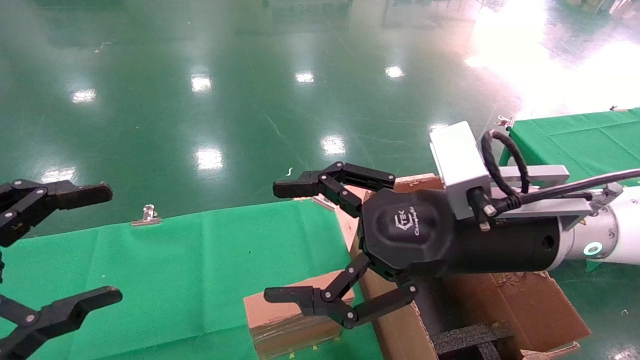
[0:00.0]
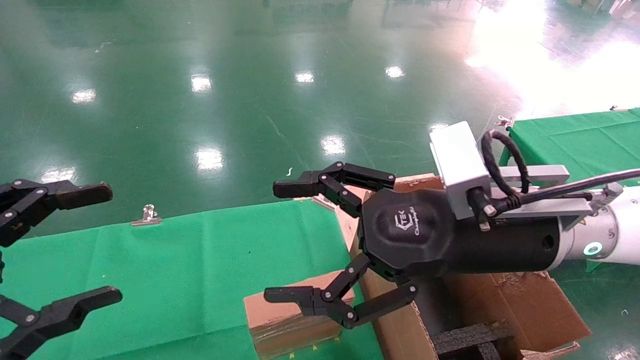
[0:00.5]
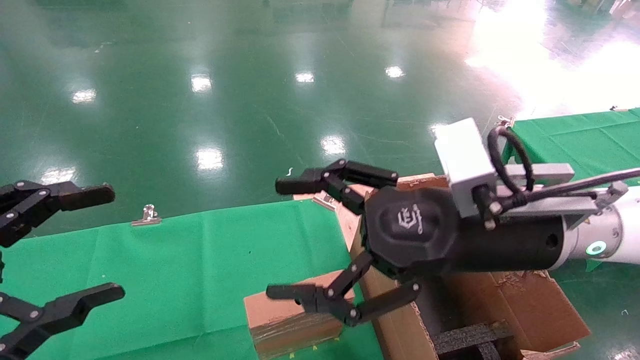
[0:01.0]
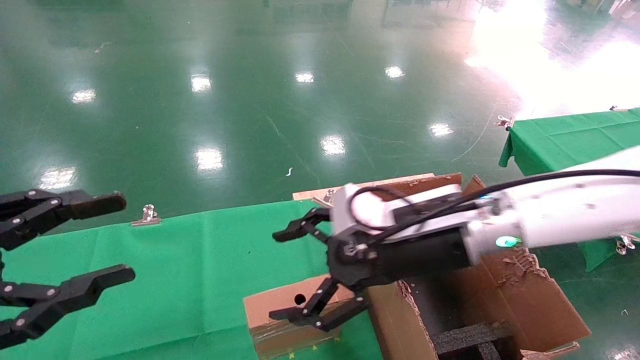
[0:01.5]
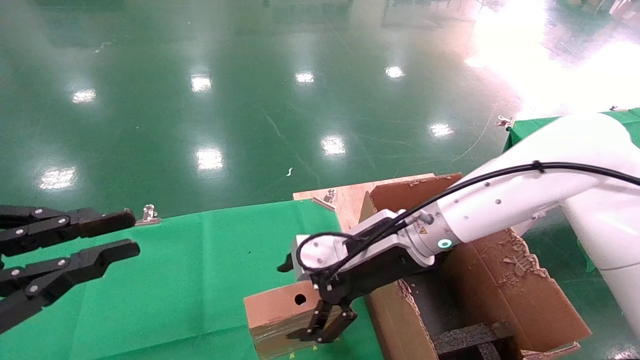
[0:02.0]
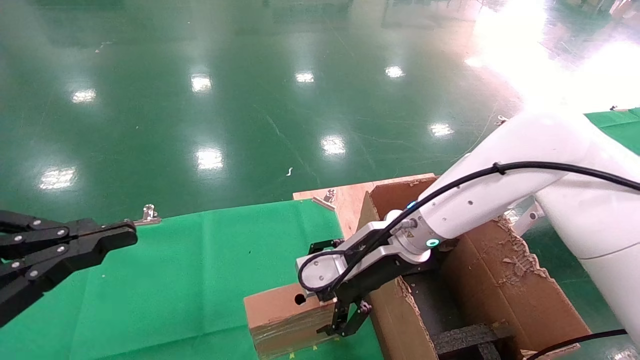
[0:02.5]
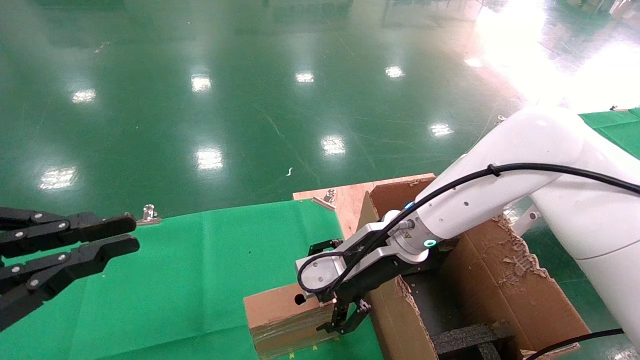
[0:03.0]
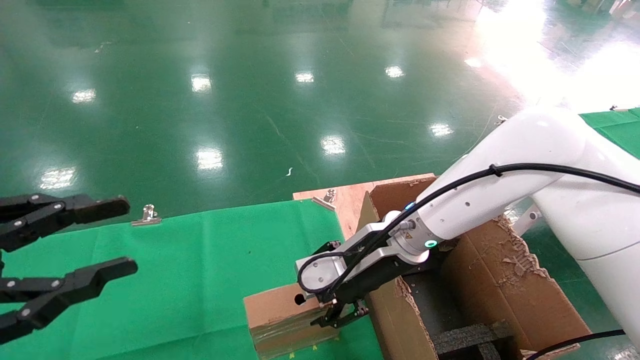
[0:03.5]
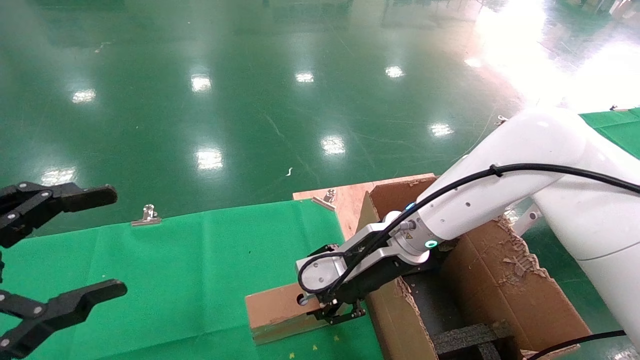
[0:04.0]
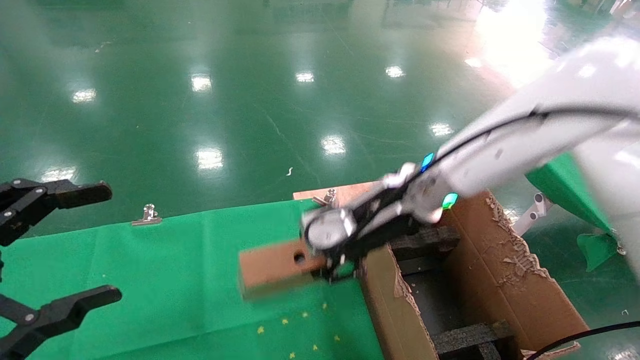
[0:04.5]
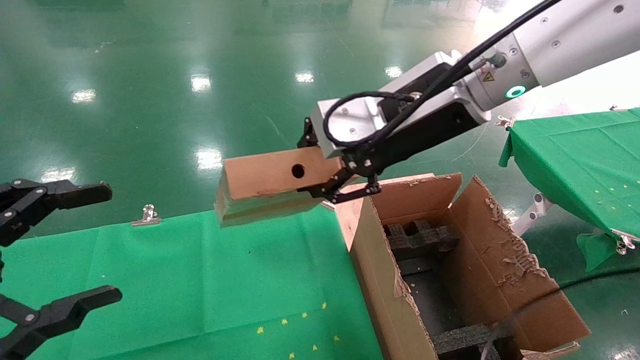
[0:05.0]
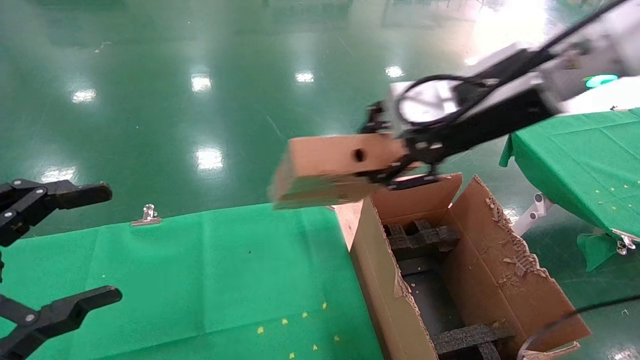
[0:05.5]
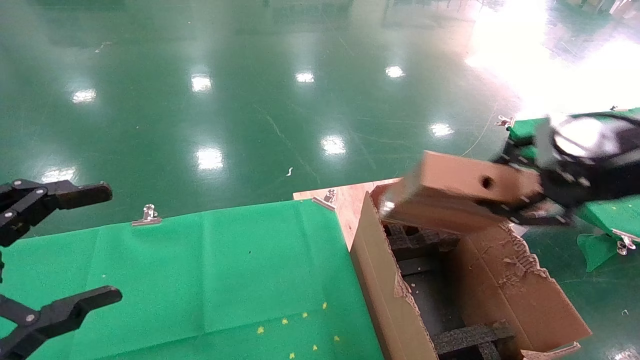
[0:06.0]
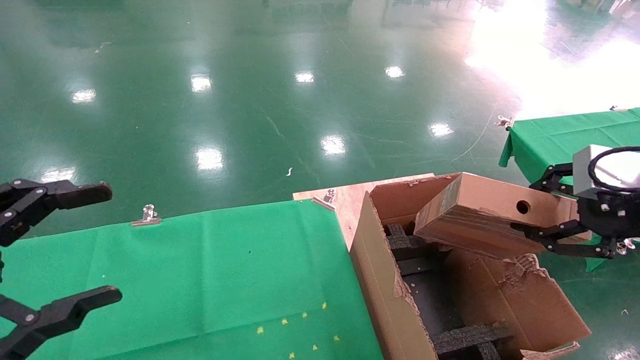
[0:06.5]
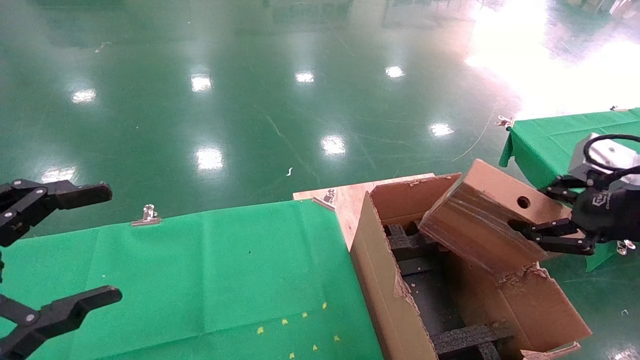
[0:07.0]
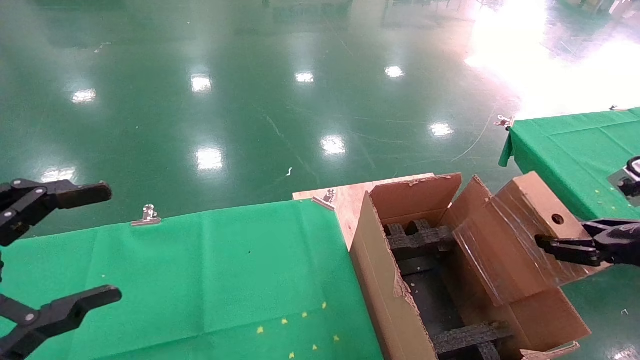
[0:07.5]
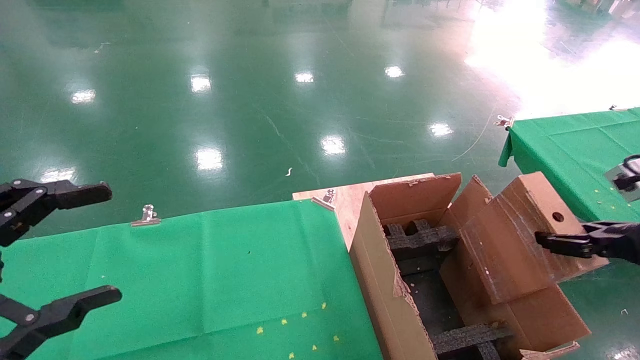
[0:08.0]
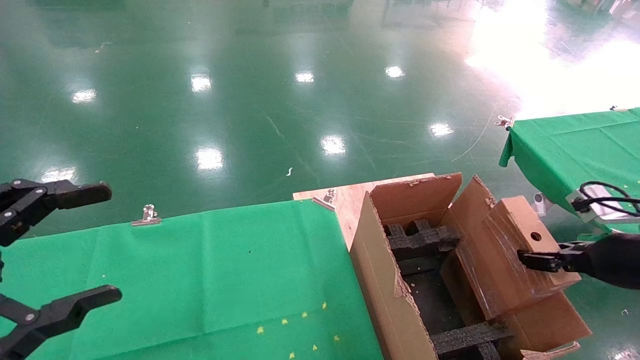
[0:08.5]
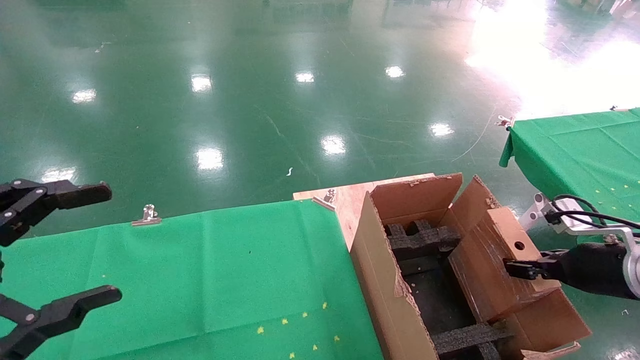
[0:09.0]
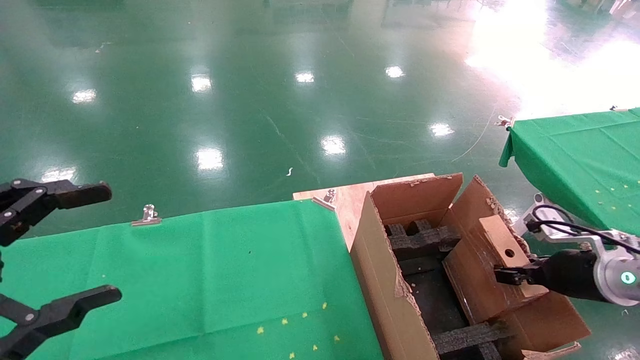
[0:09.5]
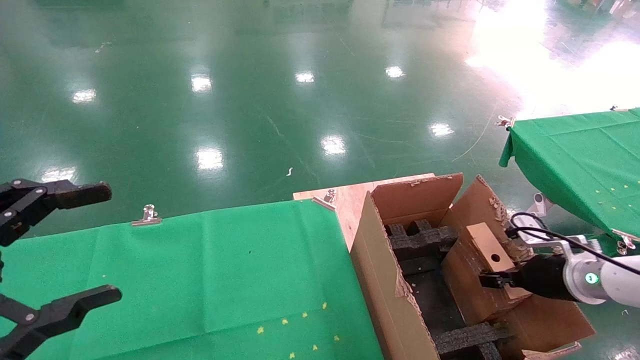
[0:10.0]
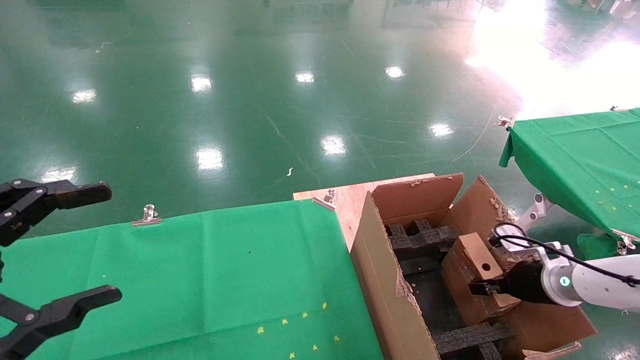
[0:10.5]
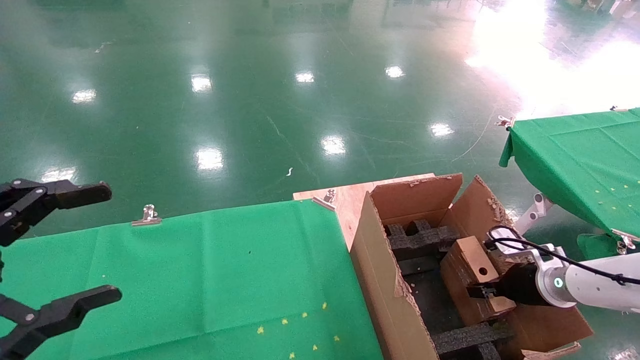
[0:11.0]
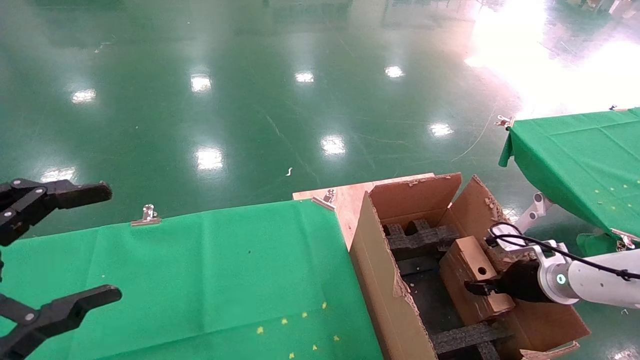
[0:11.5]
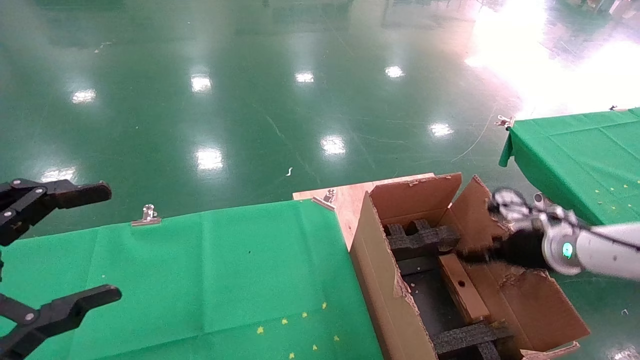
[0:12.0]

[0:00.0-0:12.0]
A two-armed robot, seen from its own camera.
Task of the whole recording: using a robotic arm to pick up a cardboard box and palace it the carton.
Step, 0:01.5 to 0:03.5: Pick up the mouse and the power cord paper box.
0:00.0 to 0:02.0: The left gripper closes, while the right gripper is displaced forward, downward and to the left by about 15 cm.
0:02.0 to 0:04.0: The left gripper opens; the right gripper closes up.
0:04.0 to 0:06.0: The right gripper goes about 30 cm to the right, upward and backward.
0:06.0 to 0:08.0: The right gripper shifts some 15 cm downward and to the right.
0:08.0 to 0:10.0: The right gripper travels downward and forward by some 20 cm.
0:10.0 to 0:12.0: The right gripper moves roughly 5 cm, and opens its fingers.

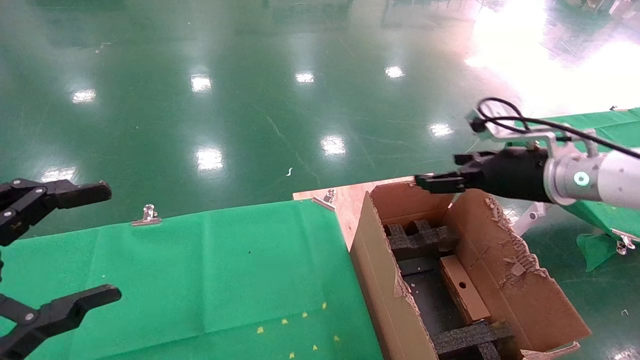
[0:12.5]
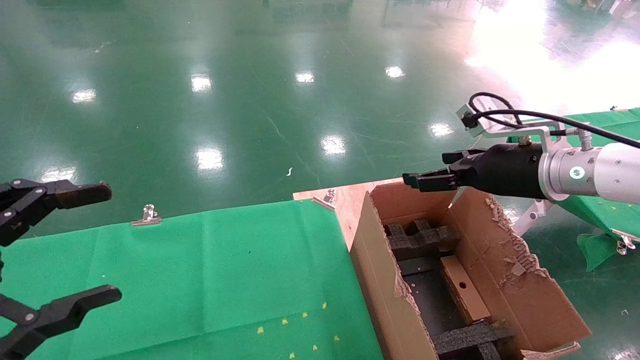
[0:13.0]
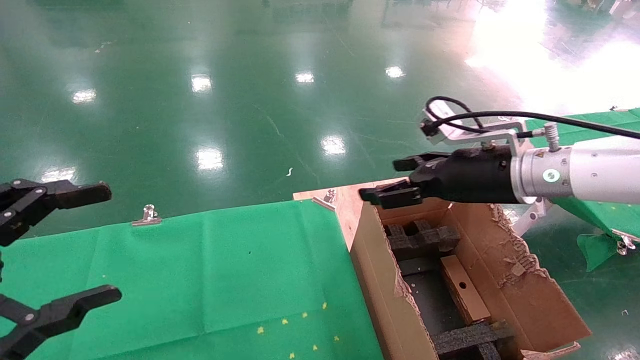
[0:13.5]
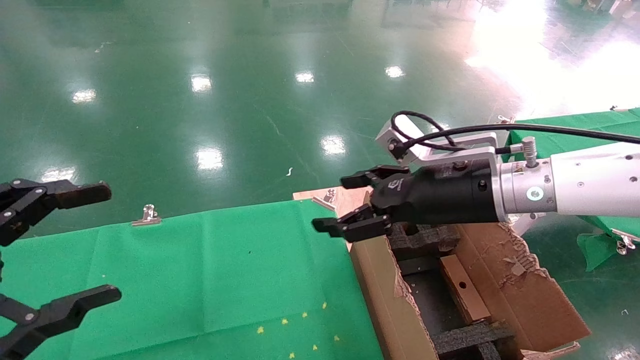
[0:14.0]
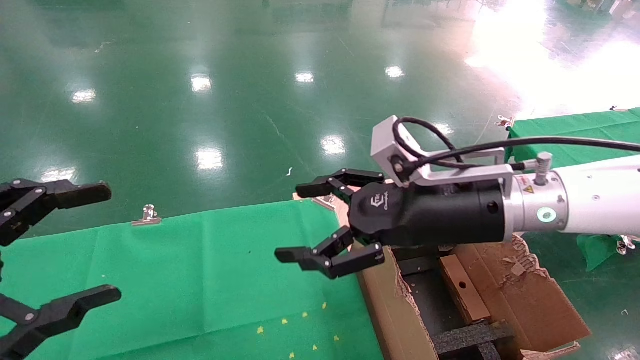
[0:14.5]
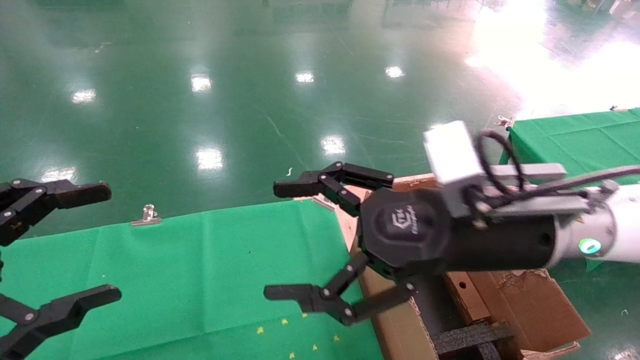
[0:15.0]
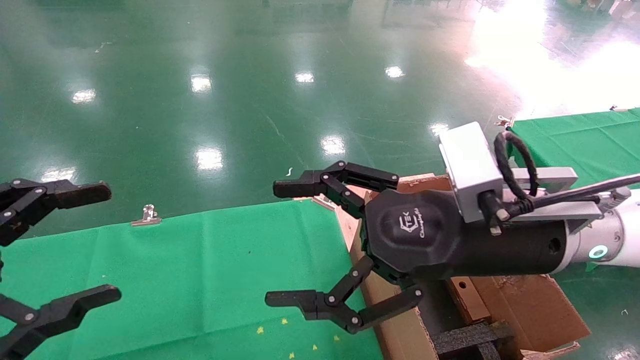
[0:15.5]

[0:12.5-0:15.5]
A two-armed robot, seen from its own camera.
Task of the whole recording: using a robotic arm to pick up a cardboard box and palace it the carton.
0:12.5 to 0:14.0: The right gripper is displaced to the left by some 10 cm.
0:14.0 to 0:15.5: The right gripper heads backward, covering roughly 10 cm.
